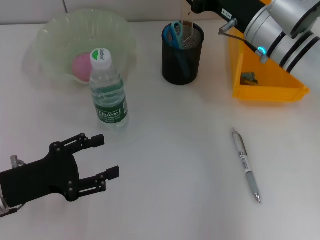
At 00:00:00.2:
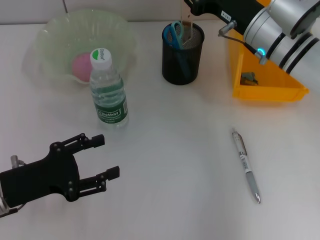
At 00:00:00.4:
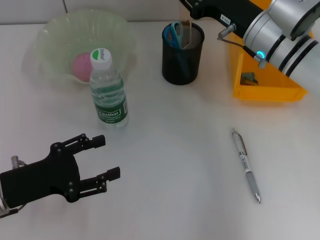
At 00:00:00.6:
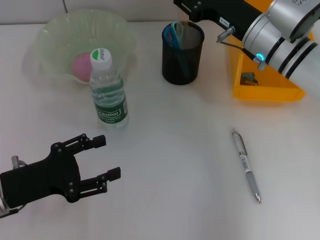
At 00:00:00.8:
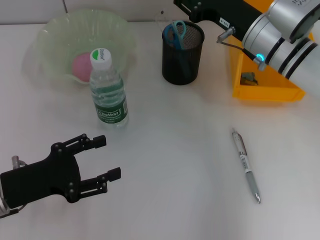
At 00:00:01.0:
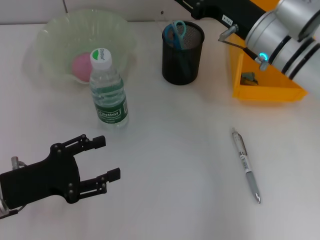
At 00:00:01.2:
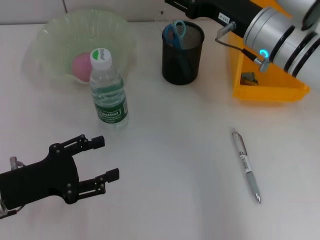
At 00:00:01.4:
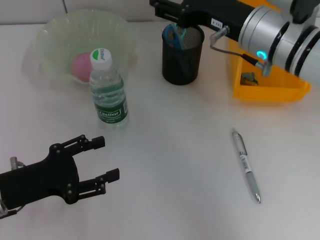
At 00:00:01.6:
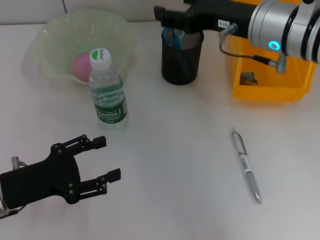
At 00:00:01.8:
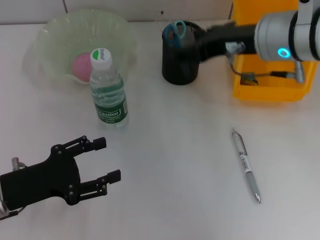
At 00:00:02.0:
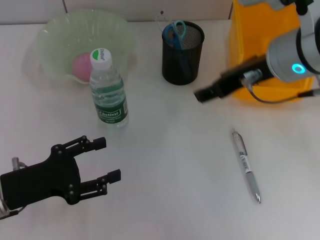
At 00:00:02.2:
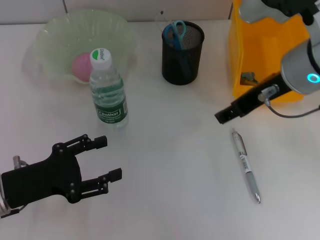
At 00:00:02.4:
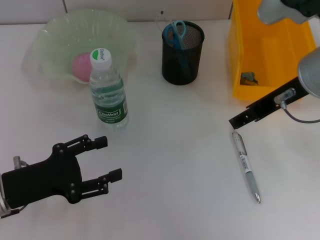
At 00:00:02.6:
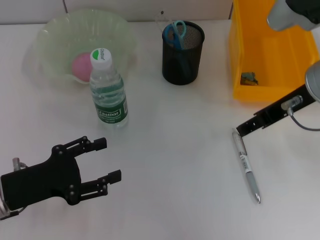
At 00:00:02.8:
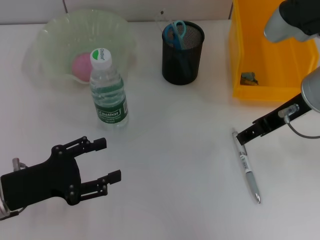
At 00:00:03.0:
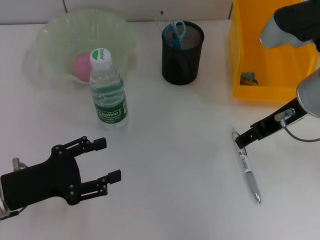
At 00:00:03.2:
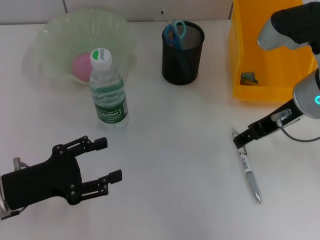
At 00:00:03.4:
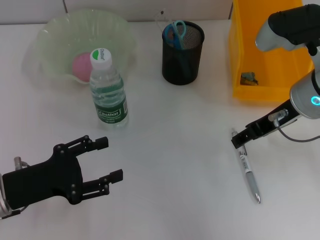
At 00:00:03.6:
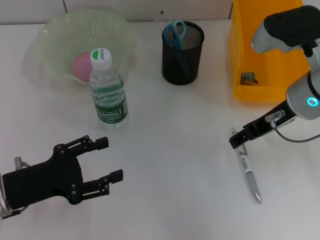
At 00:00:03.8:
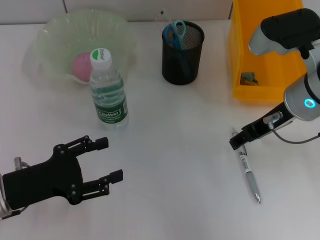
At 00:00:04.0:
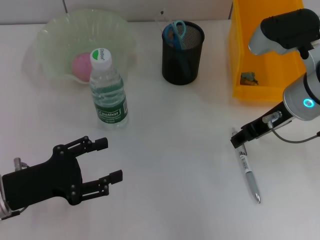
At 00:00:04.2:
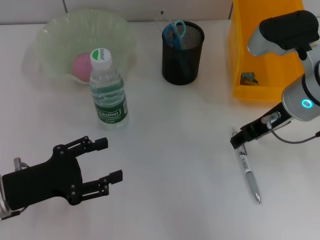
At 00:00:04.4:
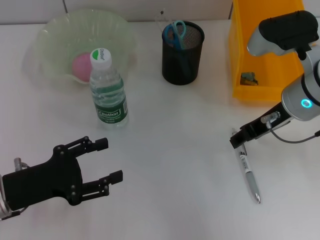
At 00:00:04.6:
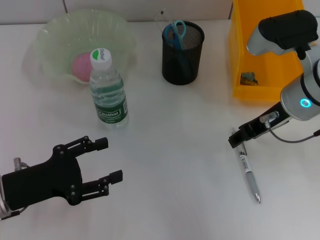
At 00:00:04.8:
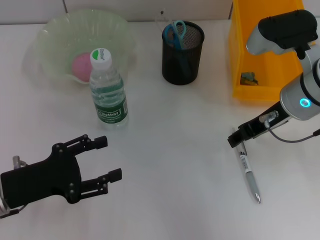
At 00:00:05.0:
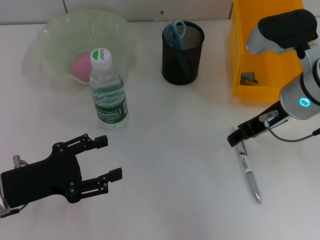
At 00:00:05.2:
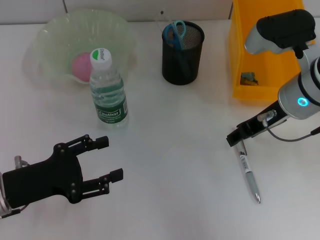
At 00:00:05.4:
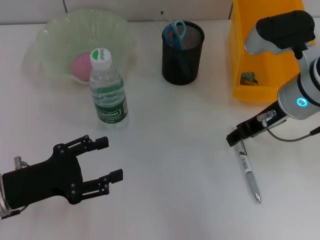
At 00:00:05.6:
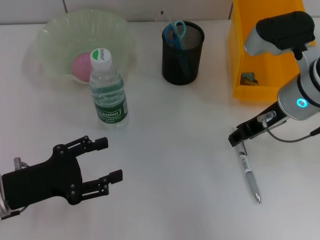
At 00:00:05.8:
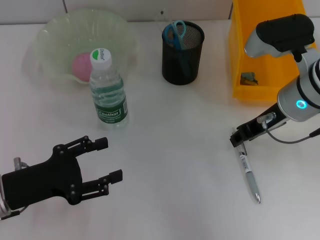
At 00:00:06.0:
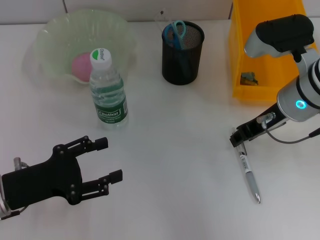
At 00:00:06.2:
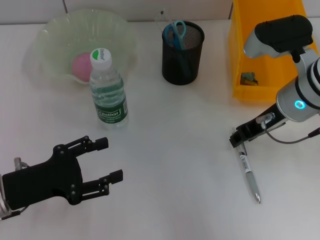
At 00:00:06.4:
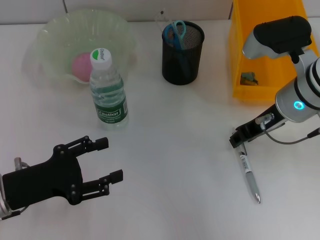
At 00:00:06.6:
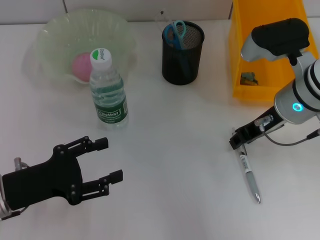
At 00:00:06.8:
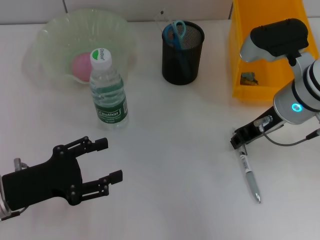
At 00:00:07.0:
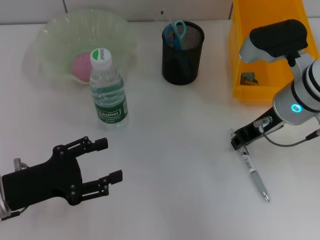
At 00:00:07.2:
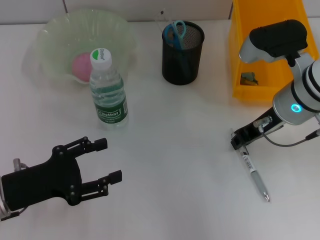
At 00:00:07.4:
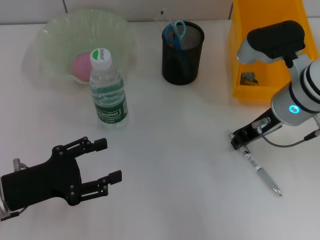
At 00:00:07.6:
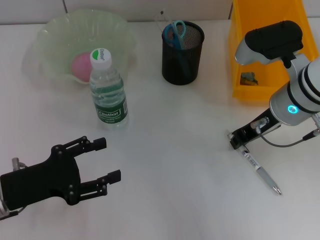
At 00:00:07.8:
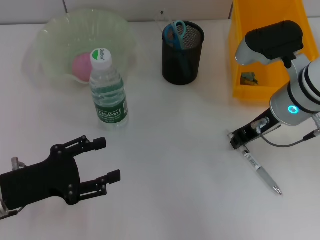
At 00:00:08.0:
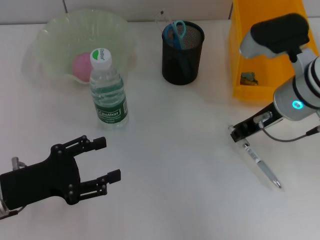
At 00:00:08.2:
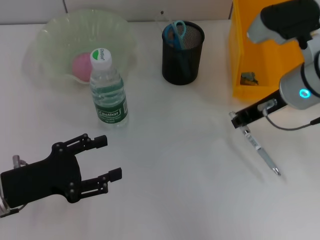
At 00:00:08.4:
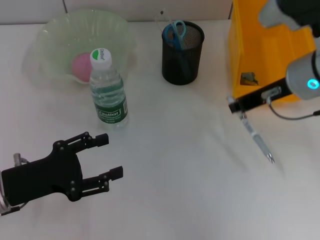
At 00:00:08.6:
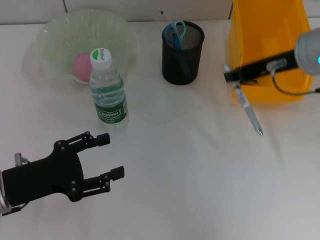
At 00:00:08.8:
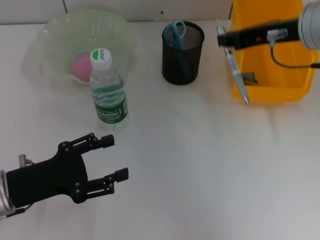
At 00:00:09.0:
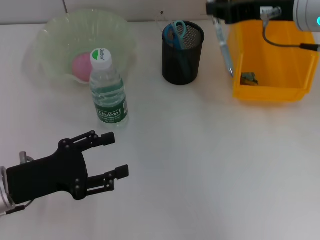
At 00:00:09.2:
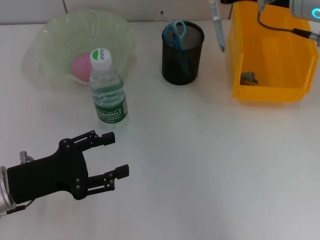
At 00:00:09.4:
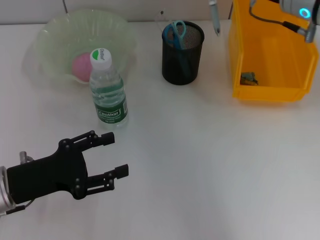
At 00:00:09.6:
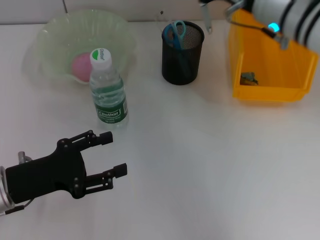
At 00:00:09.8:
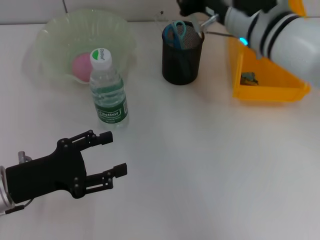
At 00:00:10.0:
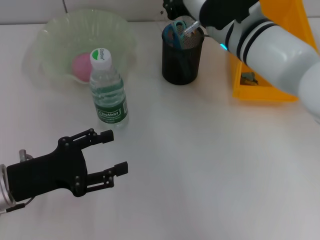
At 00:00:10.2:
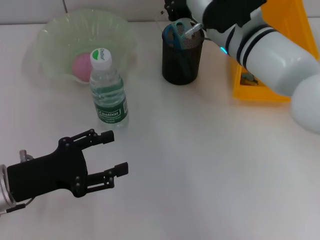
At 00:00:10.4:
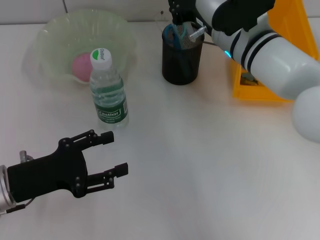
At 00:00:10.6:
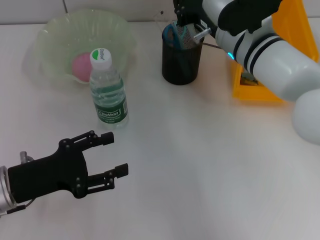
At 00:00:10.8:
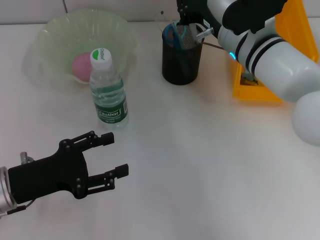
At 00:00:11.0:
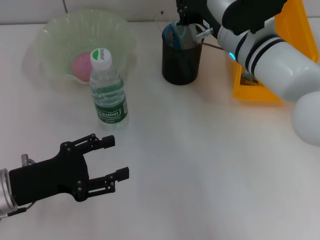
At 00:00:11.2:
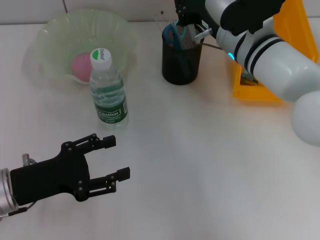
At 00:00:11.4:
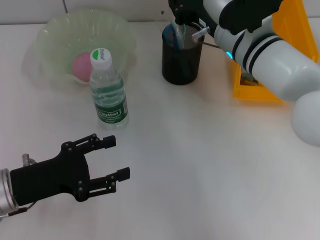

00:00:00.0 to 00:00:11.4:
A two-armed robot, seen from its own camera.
Step, 00:00:01.2 to 00:00:07.6: Grab the gray spring-action pen with the right hand.
00:00:00.0 to 00:00:01.4: The right gripper changes place by approximately 5 cm, and opens its fingers.
00:00:01.4 to 00:00:02.8: The right gripper is displaced to the right by approximately 5 cm.
00:00:02.8 to 00:00:04.2: The grippers make only small movements.
00:00:04.2 to 00:00:05.6: Both grippers stay about where they are.
00:00:05.6 to 00:00:07.2: The right gripper closes up.
00:00:07.2 to 00:00:08.6: The right gripper travels upward by about 10 cm.
00:00:08.6 to 00:00:10.0: The right gripper travels to the left by some 10 cm.
00:00:10.0 to 00:00:11.4: The grippers make only small movements.

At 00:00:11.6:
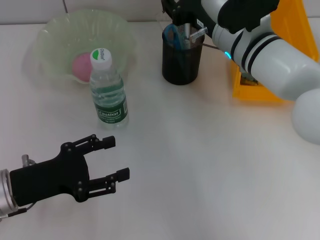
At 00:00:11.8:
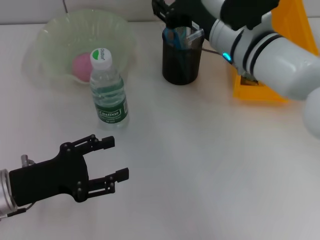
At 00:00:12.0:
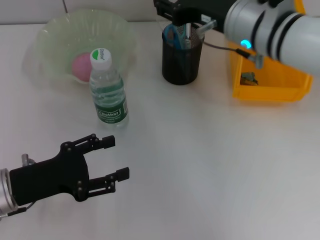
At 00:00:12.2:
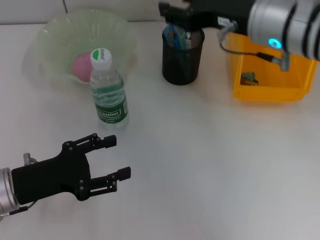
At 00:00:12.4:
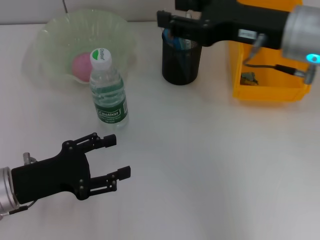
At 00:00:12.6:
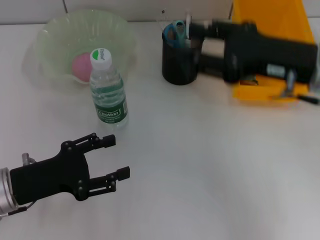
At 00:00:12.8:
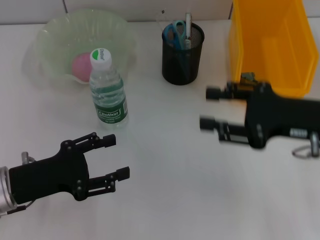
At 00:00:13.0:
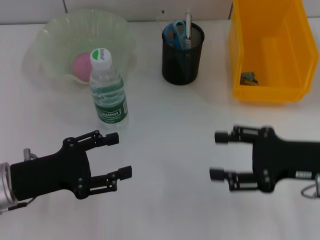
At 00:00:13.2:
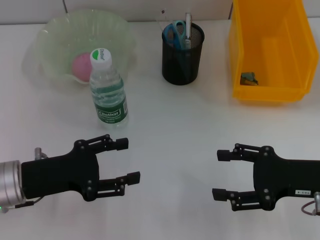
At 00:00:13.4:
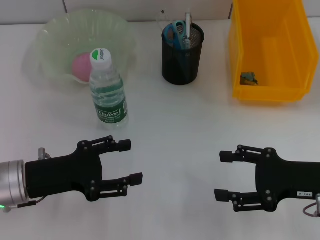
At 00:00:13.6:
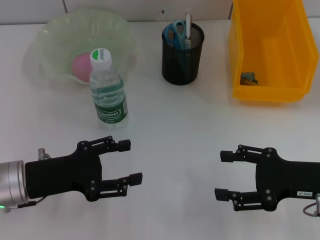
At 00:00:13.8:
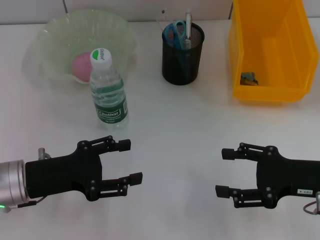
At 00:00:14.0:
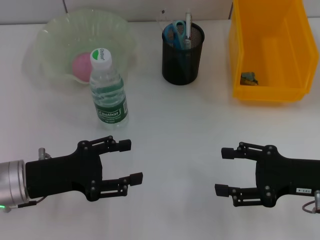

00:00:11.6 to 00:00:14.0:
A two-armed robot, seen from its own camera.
00:00:11.6 to 00:00:12.8: The right gripper goes approximately 20 cm to the right and backward, and opens its fingers.
00:00:12.8 to 00:00:14.0: The right gripper moves downward, roughly 5 cm.
